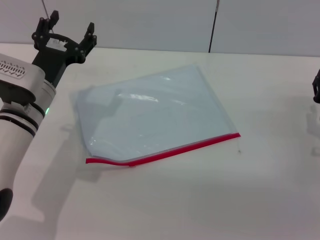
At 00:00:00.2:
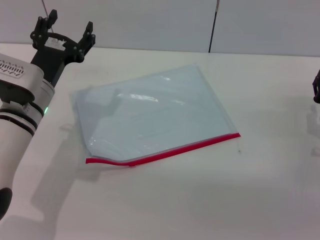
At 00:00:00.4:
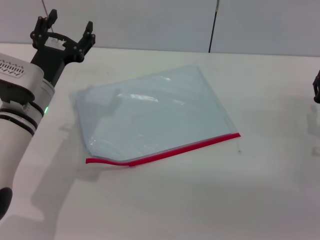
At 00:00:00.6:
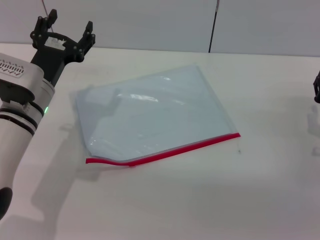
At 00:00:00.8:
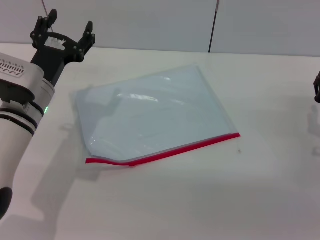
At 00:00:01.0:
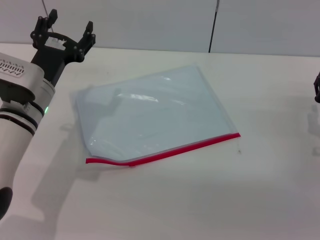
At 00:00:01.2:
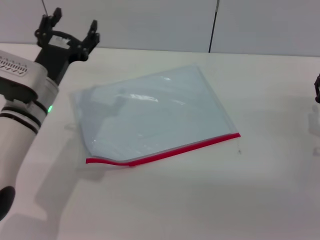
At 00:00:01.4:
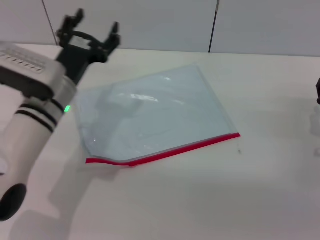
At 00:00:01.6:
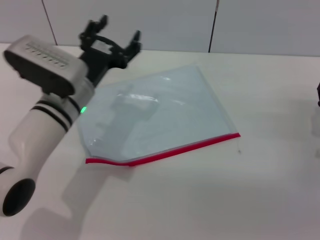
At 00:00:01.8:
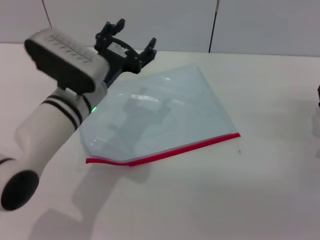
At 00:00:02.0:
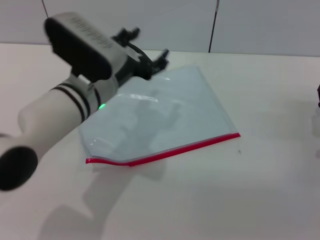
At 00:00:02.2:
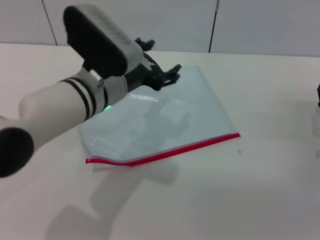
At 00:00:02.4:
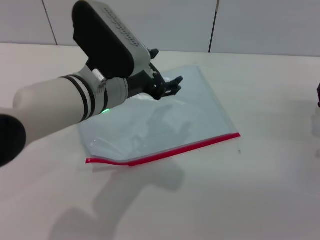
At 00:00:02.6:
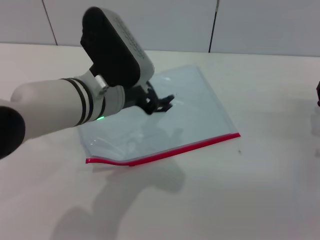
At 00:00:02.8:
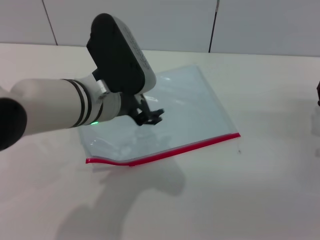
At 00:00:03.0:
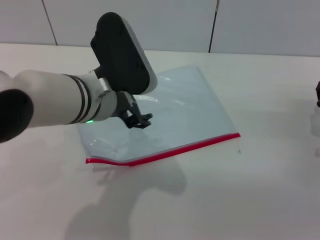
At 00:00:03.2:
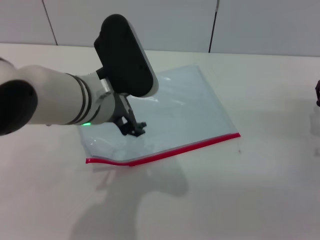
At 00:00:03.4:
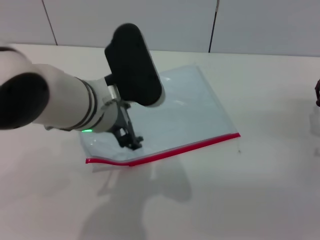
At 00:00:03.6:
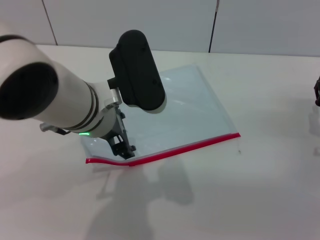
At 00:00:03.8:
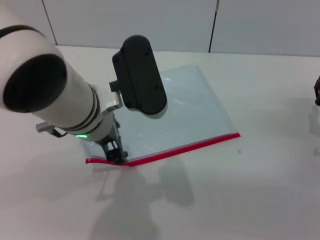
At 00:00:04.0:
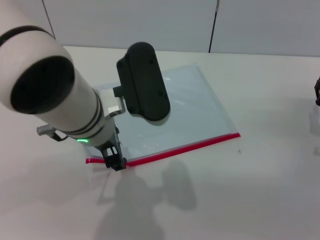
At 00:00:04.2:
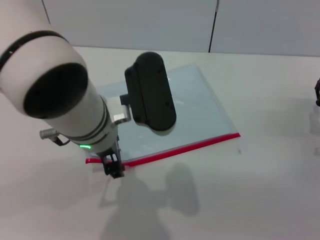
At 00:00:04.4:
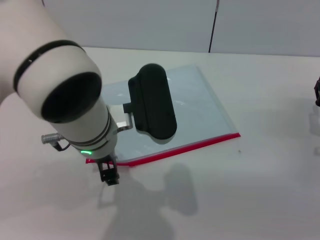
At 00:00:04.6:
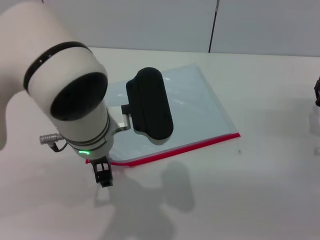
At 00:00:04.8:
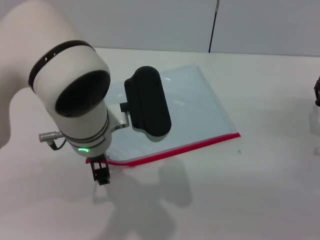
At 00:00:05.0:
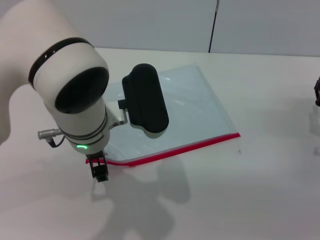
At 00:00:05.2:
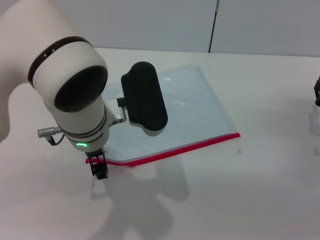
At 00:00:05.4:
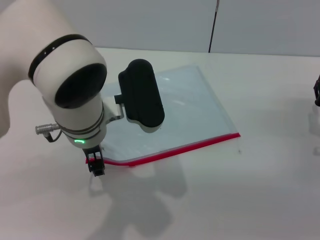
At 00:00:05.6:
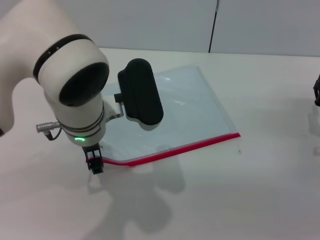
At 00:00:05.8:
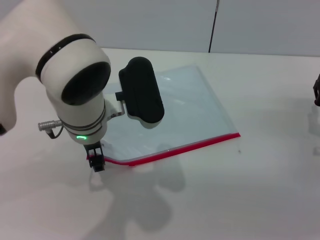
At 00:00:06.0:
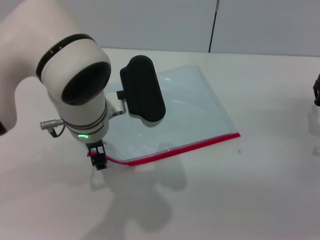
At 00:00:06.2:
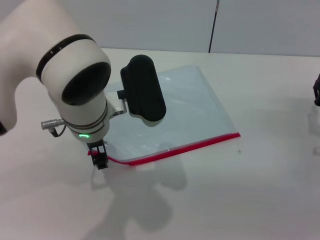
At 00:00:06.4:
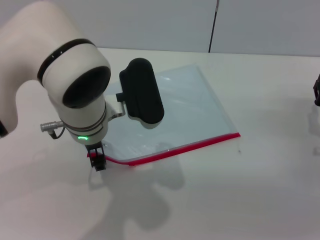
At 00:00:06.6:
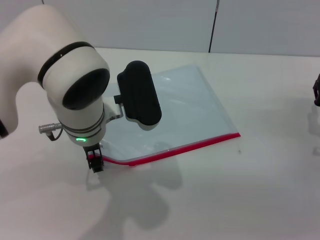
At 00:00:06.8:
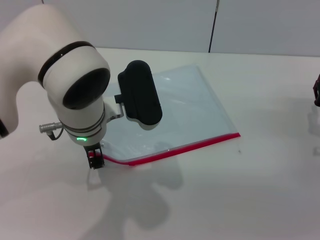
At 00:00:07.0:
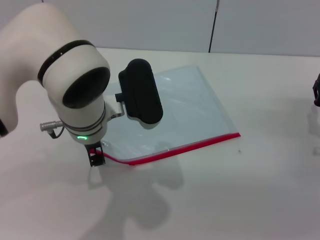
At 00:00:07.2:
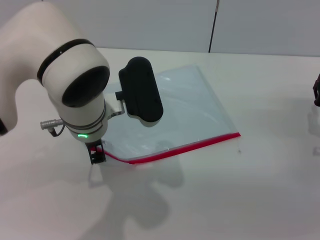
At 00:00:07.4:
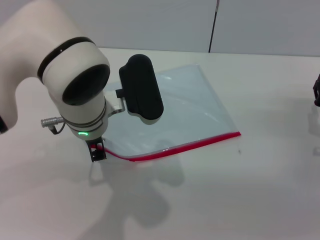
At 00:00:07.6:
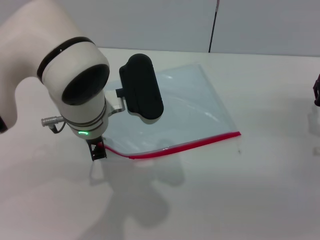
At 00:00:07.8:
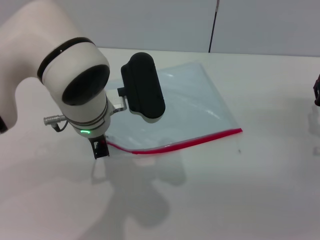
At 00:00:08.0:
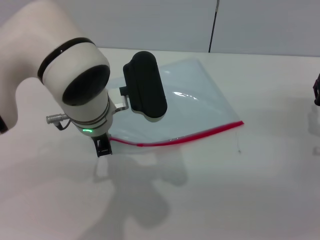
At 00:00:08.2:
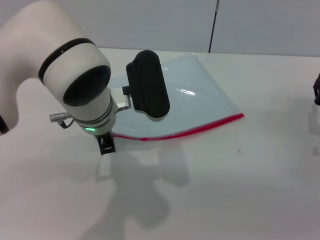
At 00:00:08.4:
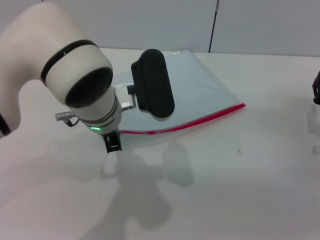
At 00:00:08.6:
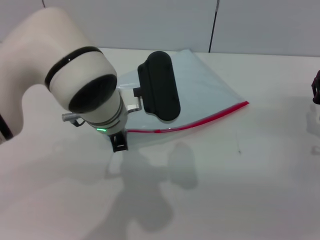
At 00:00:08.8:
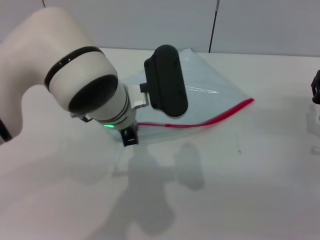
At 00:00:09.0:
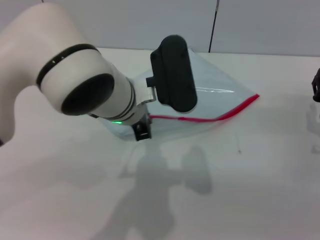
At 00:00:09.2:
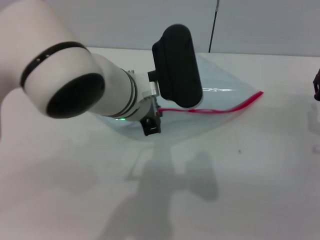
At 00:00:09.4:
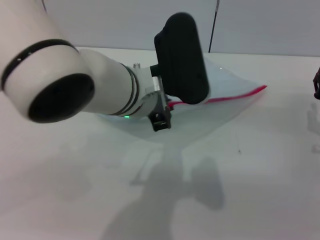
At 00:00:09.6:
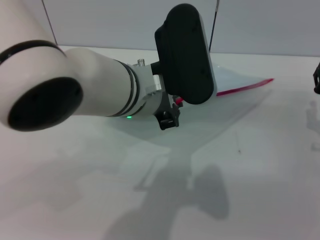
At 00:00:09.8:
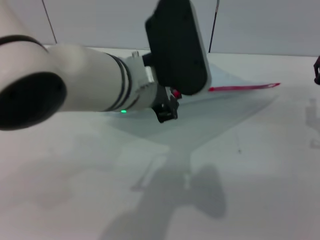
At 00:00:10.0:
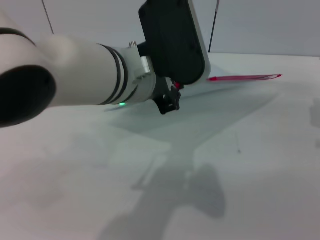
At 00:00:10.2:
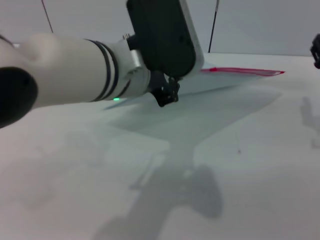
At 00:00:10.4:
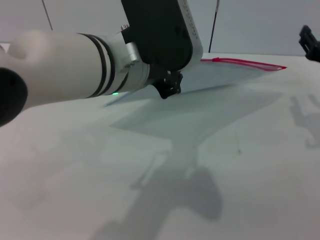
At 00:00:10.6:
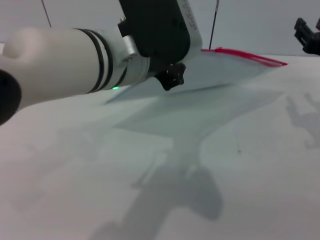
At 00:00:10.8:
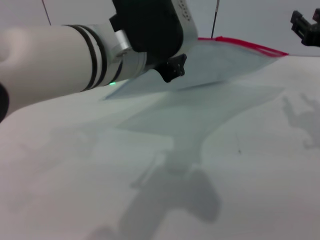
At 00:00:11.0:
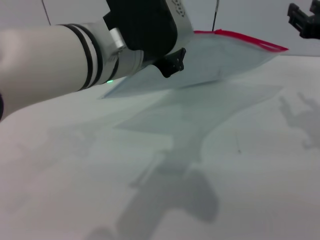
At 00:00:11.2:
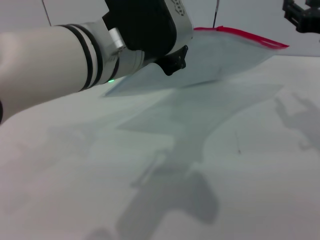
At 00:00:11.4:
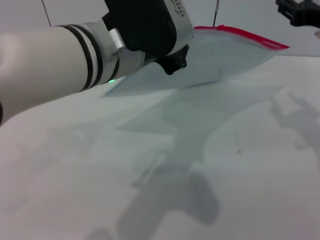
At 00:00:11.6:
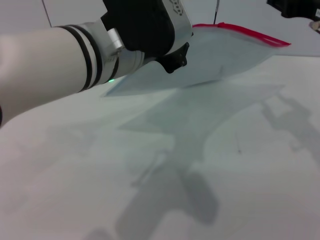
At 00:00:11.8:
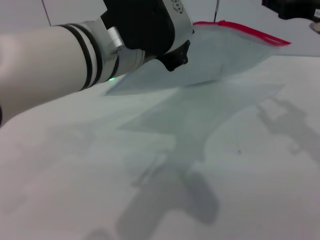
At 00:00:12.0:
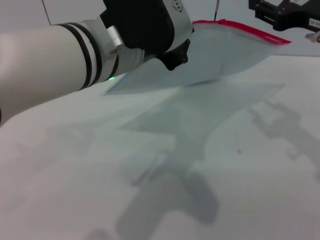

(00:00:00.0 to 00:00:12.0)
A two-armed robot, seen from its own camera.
Step, 00:00:00.0 - 00:00:10.6: Pick up the transparent plastic bag with the left gripper.
00:00:00.0 - 00:00:01.6: The left gripper shifts approximately 5 cm to the right.
00:00:01.6 - 00:00:03.0: The left gripper heads upward, covering some 10 cm.
00:00:04.4 - 00:00:06.0: The grippers stay close to where they were, moving slightly.
00:00:06.0 - 00:00:07.6: Neither gripper changes place.
00:00:07.6 - 00:00:09.0: The left gripper closes.
00:00:09.0 - 00:00:10.4: The two grippers go approximately 10 cm upward.
00:00:10.4 - 00:00:12.0: The right gripper shifts approximately 10 cm upward.

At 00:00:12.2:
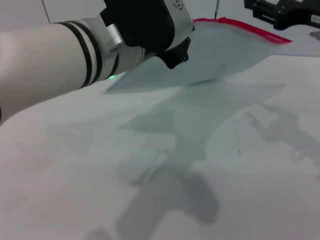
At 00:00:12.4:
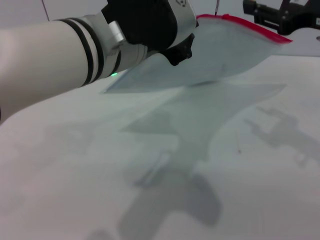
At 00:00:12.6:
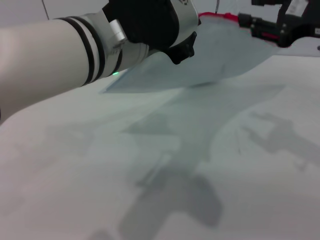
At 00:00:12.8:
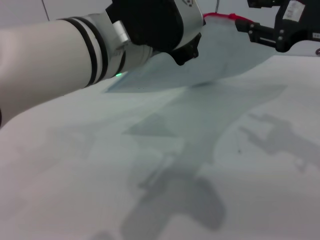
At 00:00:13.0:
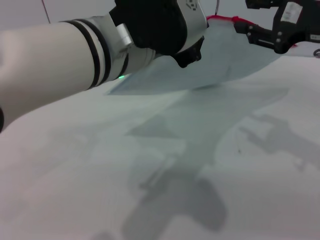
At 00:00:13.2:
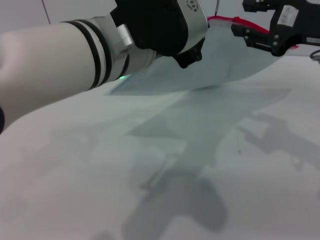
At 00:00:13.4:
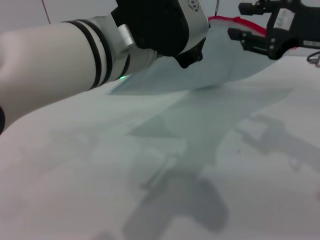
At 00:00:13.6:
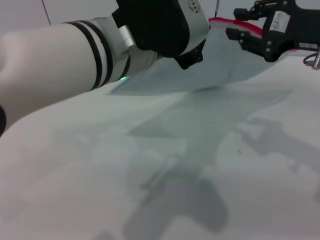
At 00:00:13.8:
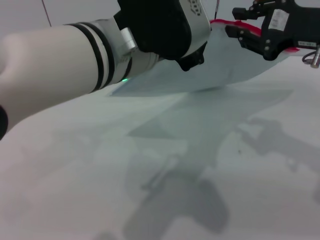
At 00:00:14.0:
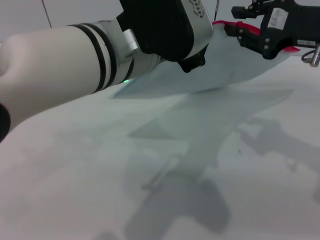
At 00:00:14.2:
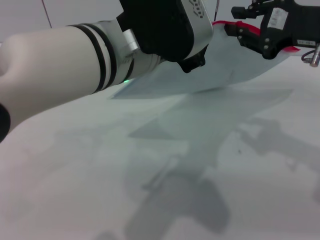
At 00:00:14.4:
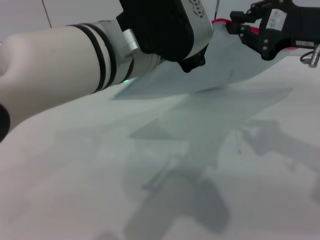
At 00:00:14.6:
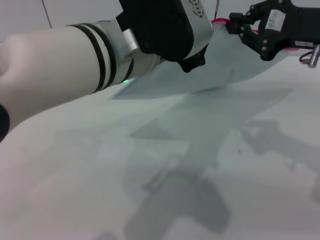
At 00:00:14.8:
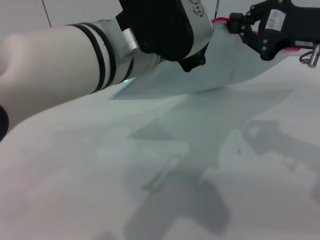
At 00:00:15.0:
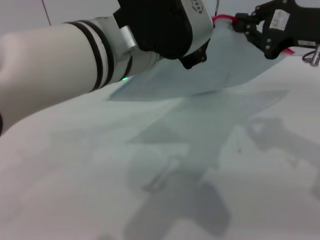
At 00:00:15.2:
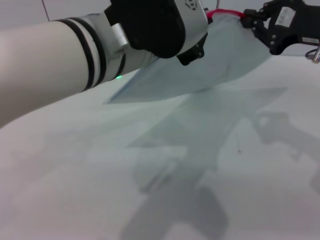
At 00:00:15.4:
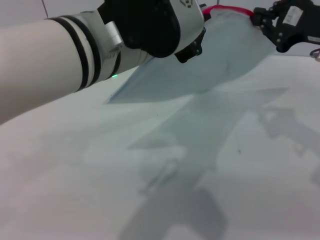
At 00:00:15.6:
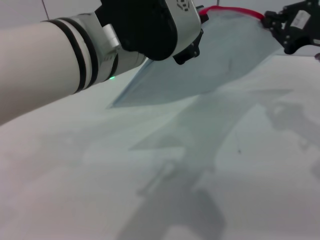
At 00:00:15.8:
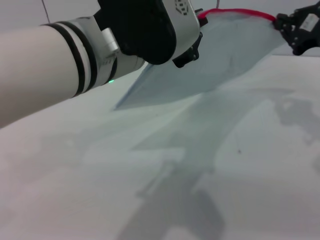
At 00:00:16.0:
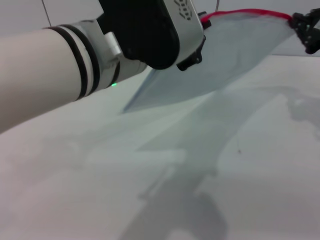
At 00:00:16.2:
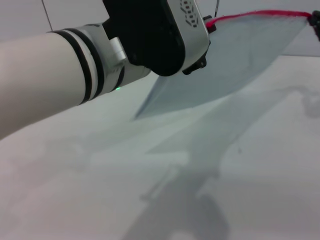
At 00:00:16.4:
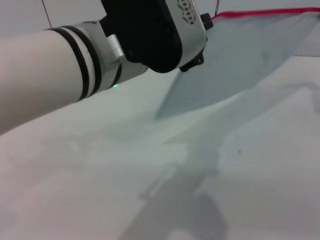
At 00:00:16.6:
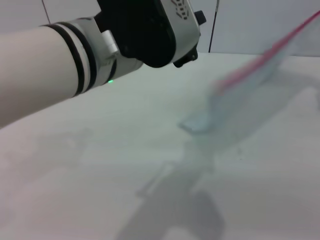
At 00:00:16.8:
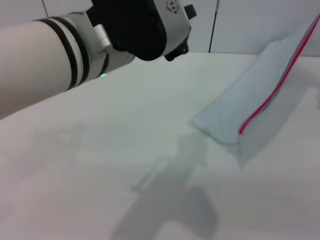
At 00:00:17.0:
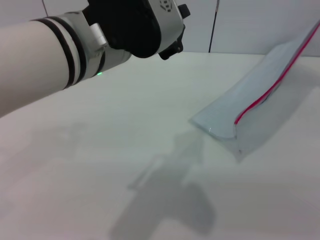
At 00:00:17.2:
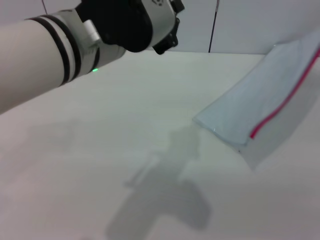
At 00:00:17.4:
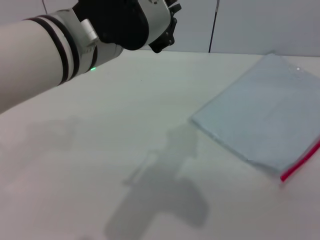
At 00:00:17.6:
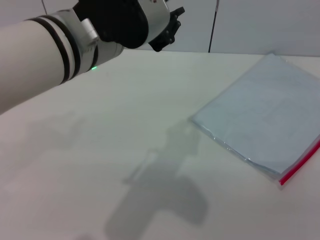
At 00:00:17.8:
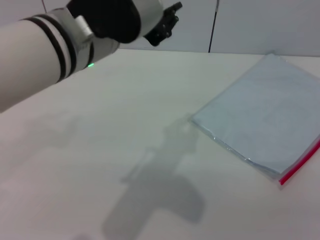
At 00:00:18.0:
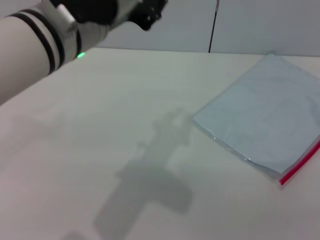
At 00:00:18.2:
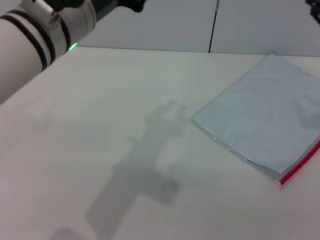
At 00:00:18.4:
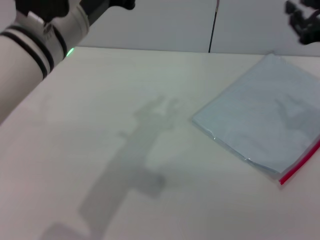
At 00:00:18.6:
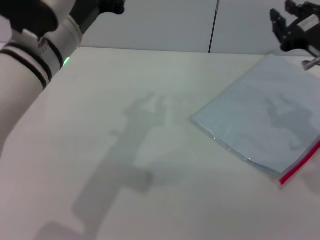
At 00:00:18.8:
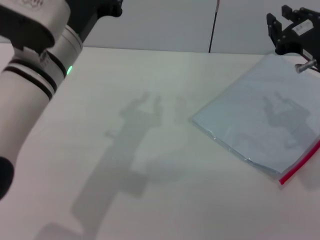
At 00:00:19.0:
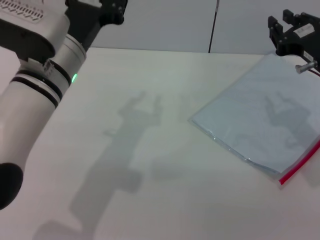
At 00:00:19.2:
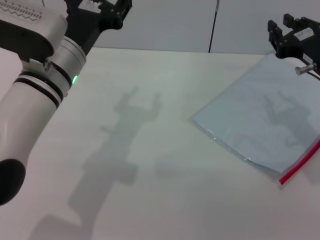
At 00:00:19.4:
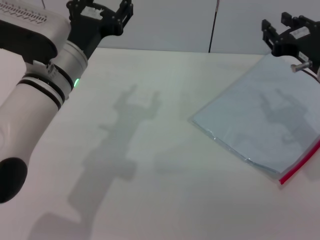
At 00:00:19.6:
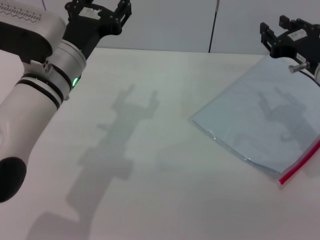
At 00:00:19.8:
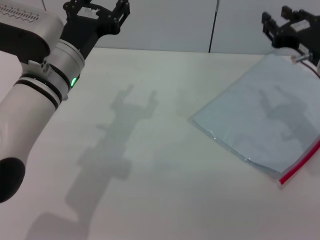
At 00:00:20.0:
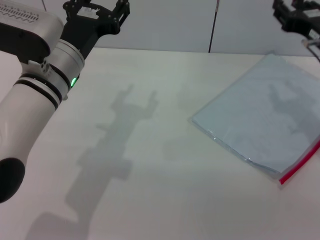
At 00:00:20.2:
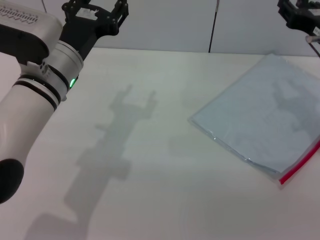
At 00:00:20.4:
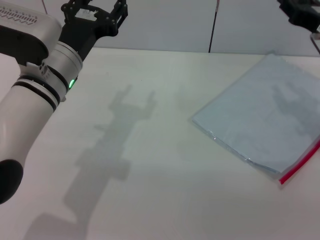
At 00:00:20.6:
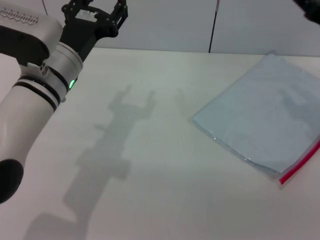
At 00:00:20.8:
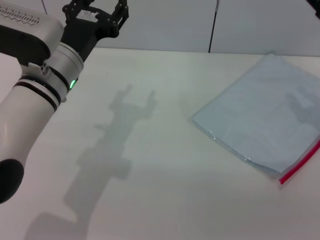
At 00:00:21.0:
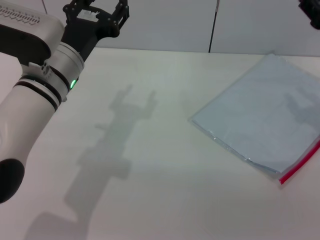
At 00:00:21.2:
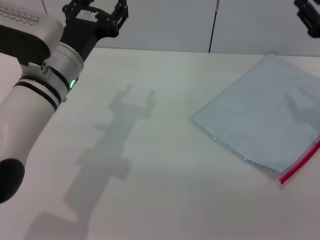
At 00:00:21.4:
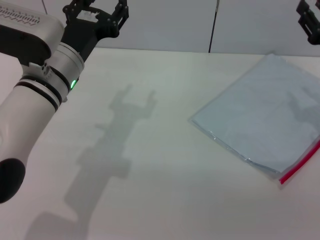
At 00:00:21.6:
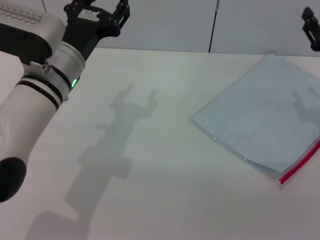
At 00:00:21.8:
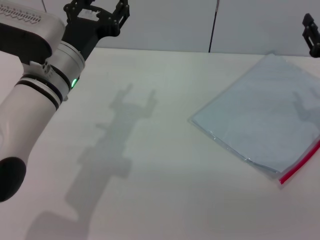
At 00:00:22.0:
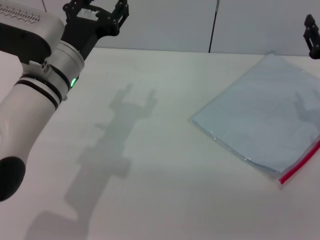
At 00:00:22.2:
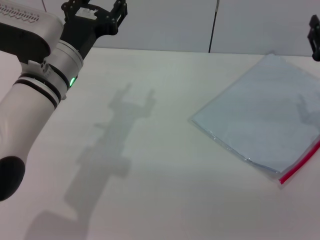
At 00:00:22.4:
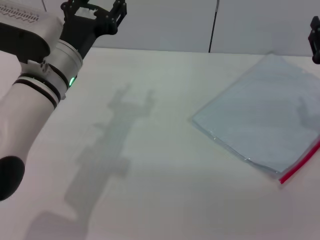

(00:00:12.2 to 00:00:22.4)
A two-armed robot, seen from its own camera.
Step, 00:00:12.2 - 00:00:16.4: Pulling up the zipper on the transparent plastic bag with the right gripper to close it.
Step, 00:00:16.6 - 00:00:17.2: Place the transparent plastic bag.
00:00:13.6 - 00:00:15.2: The right gripper closes its fingers.
00:00:15.2 - 00:00:16.6: The right gripper goes some 10 cm to the right.
00:00:16.6 - 00:00:18.0: The left gripper opens its fingers, while the right gripper ends up some 5 cm from where it was, and opens its fingers.
00:00:18.0 - 00:00:19.4: The right gripper goes approximately 10 cm to the left and downward, while the left gripper moves downward, roughly 10 cm, and opens.
00:00:19.4 - 00:00:21.0: The right gripper moves to the right, about 5 cm.
00:00:21.0 - 00:00:22.4: The right gripper travels downward by approximately 5 cm.
